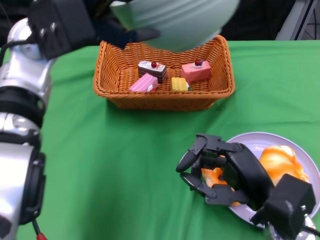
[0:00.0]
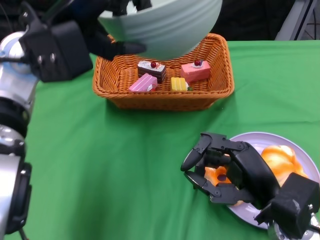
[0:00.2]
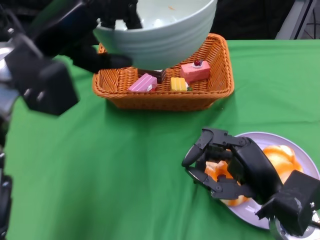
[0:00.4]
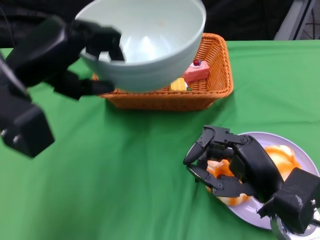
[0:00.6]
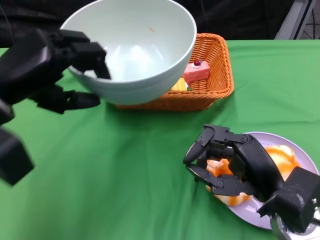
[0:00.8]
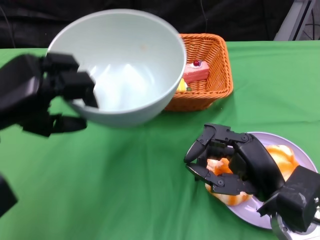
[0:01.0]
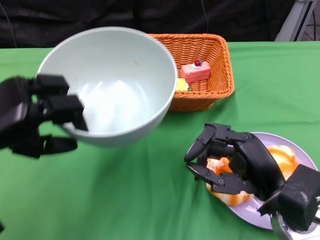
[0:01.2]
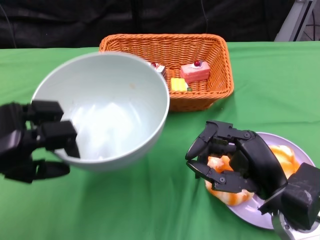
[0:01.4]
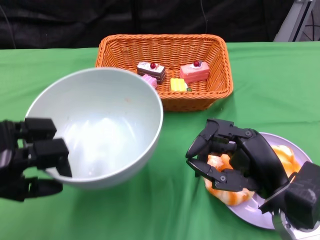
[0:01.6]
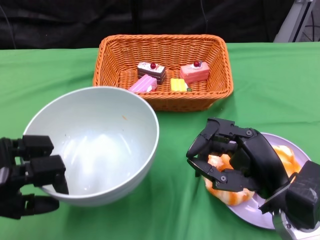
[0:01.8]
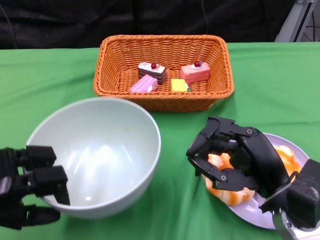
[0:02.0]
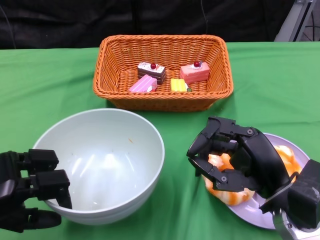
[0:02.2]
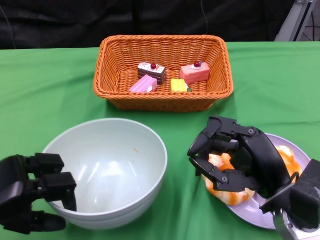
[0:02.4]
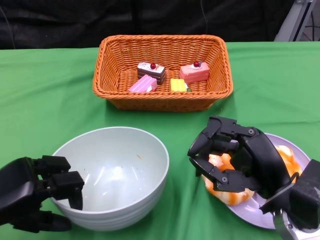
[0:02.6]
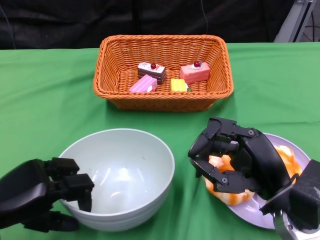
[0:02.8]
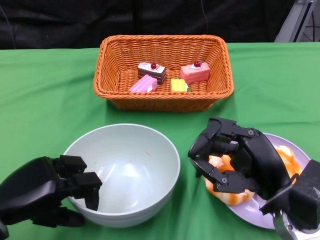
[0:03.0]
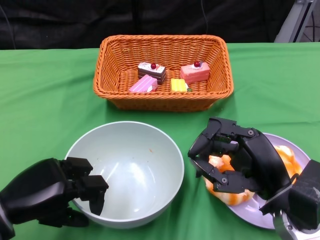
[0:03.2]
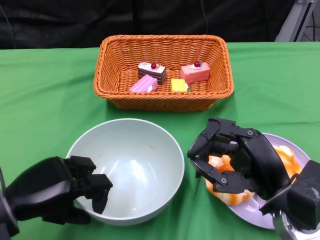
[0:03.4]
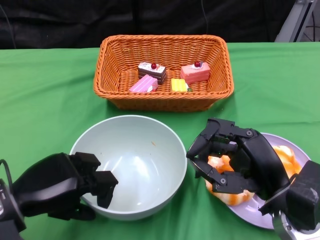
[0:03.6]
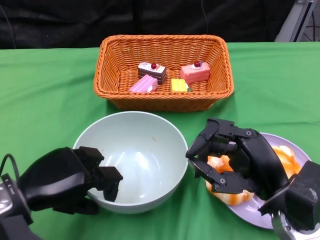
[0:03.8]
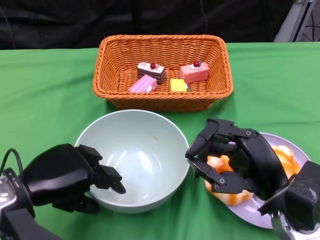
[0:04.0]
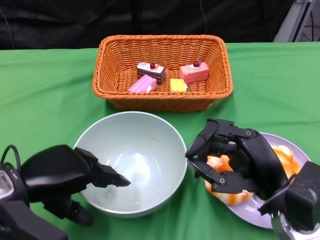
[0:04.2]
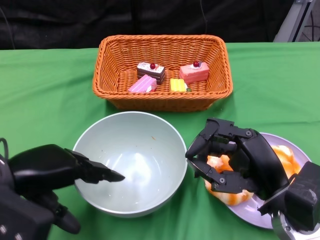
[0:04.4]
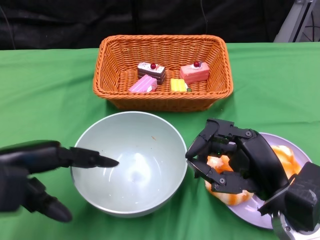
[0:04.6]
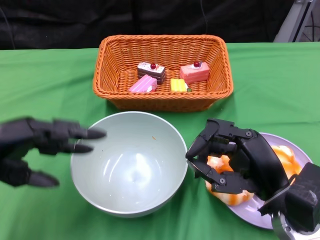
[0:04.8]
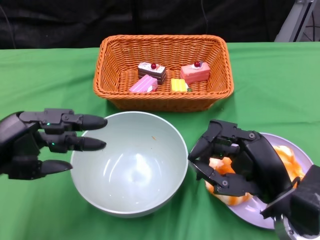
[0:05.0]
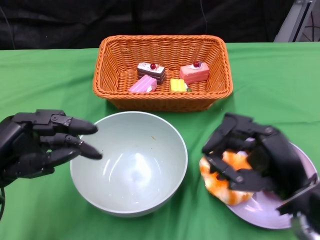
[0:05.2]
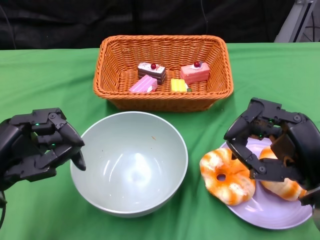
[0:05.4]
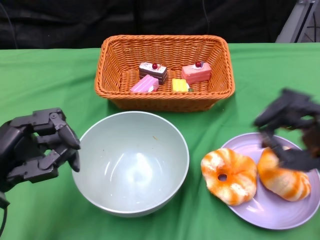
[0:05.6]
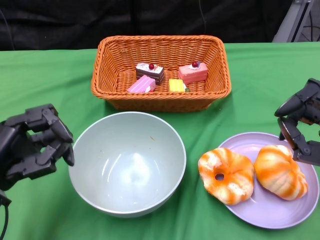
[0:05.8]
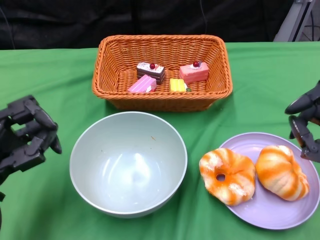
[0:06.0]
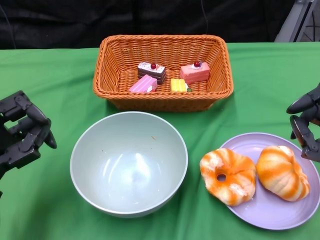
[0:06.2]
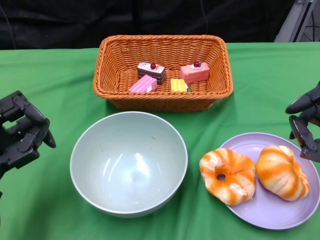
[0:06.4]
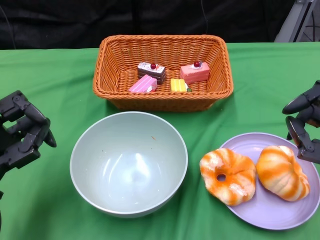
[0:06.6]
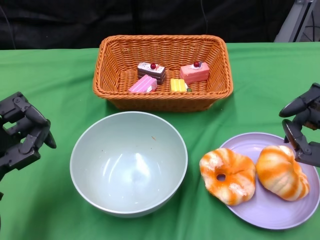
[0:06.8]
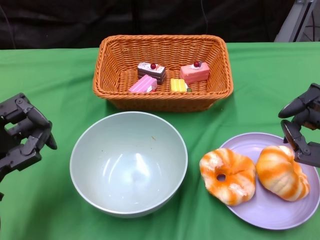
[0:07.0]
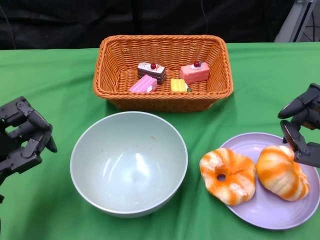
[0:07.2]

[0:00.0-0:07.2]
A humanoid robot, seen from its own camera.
Step, 0:00.0 to 0:03.8: Place the bowl on the table with the left gripper.
0:00.0 to 0:01.4: The left hand moves to the left, backward and downward, about 20 cm.
0:01.4 to 0:02.8: The left hand shifts approximately 5 cm downward.
0:02.8 to 0:04.4: The left hand heads upward, covering about 5 cm.
0:04.4 to 0:05.8: The right hand goes about 10 cm to the right.
0:05.8 to 0:07.2: The hands make only small movements.
